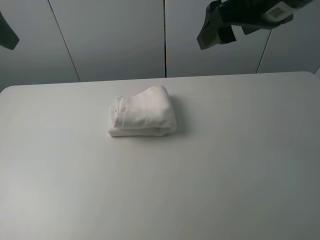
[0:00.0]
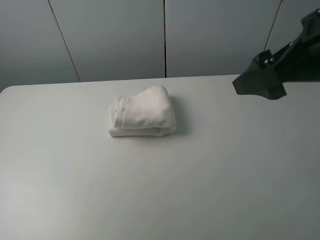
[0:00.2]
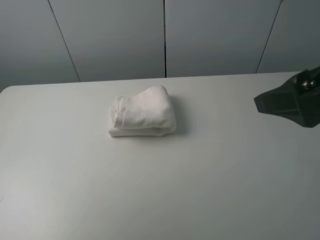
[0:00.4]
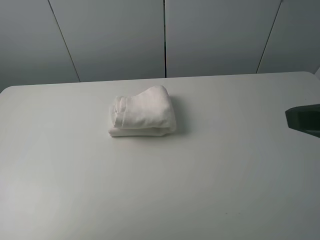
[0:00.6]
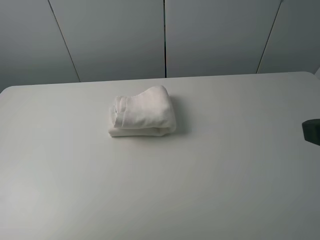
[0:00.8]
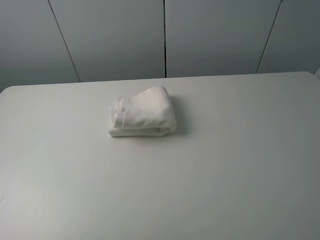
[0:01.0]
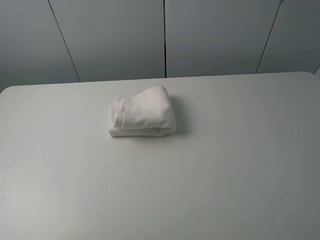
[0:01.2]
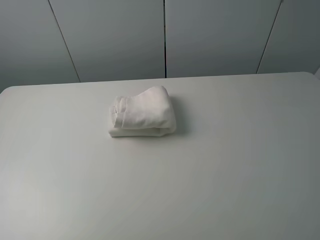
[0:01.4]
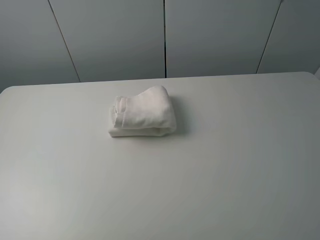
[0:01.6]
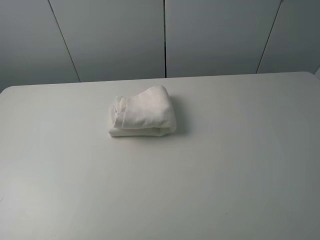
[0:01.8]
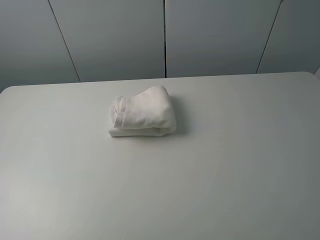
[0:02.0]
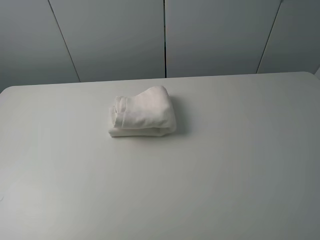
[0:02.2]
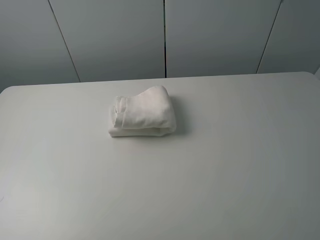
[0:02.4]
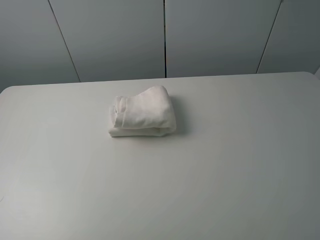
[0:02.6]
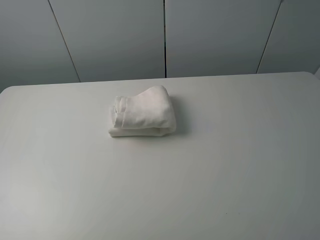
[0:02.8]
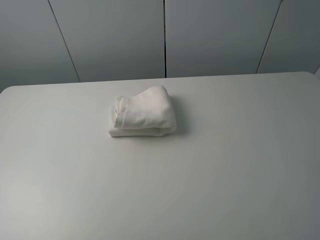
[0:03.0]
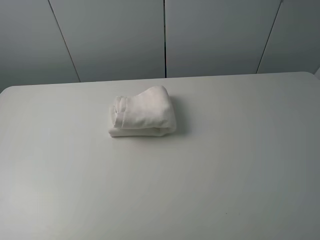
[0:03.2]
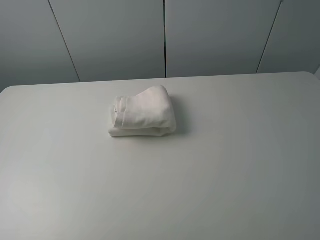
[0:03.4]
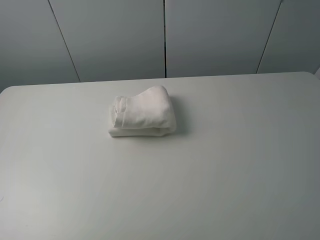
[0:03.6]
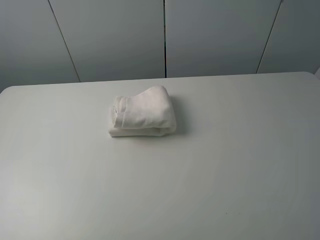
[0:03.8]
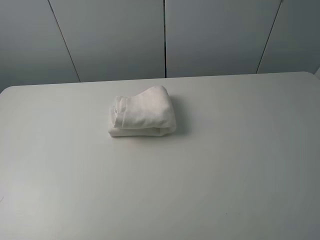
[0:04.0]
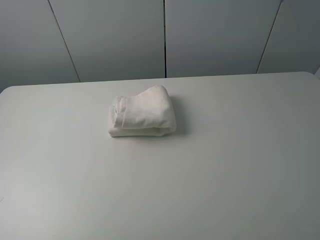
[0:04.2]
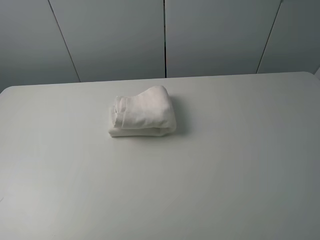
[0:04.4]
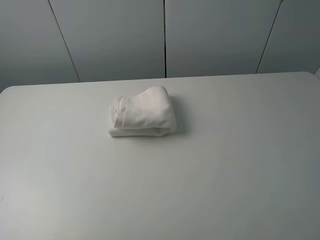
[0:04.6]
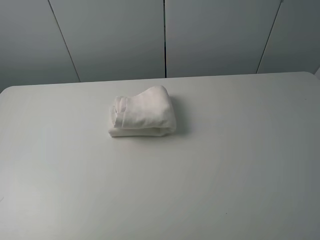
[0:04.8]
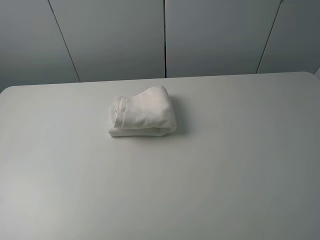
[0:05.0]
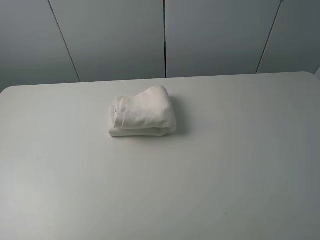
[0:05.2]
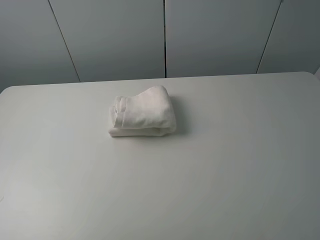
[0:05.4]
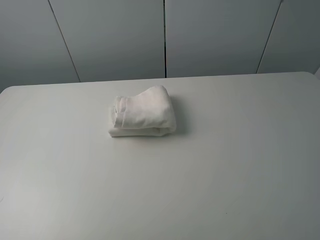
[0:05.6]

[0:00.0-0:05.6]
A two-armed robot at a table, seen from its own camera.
Task of the whole recording: fold the towels on the table.
0:00.0 to 0:01.4: The right gripper heads backward and to the right, covering some 25 cm, while the left gripper moves backward and downward, about 25 cm.
0:04.2 to 0:05.6: Neither gripper changes place.

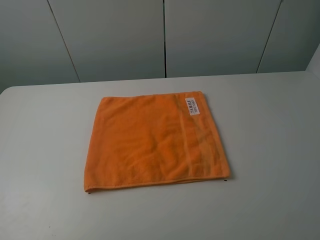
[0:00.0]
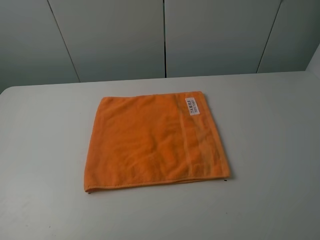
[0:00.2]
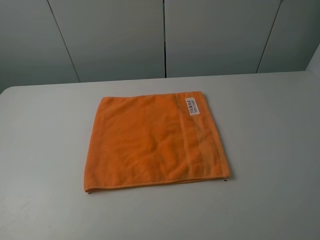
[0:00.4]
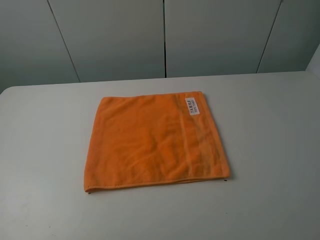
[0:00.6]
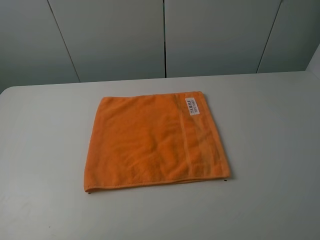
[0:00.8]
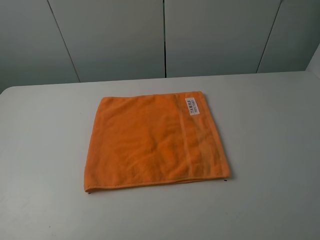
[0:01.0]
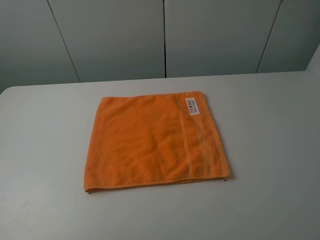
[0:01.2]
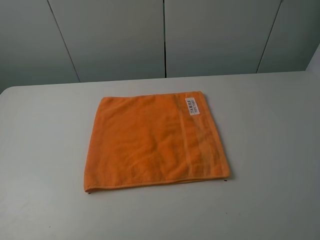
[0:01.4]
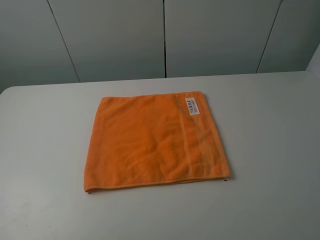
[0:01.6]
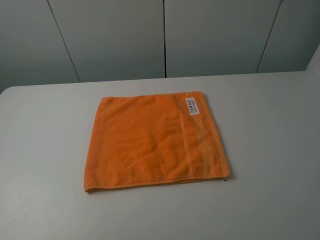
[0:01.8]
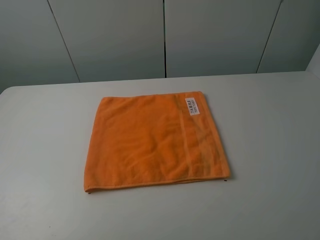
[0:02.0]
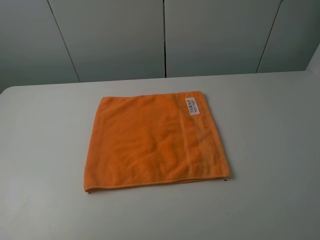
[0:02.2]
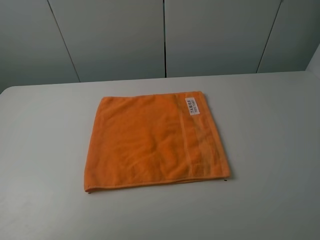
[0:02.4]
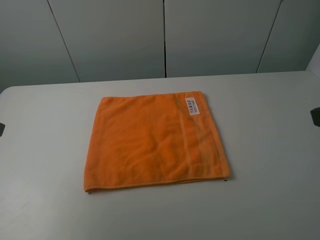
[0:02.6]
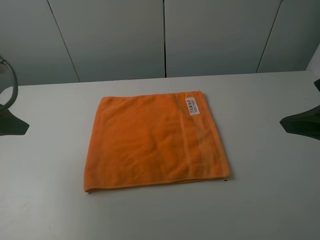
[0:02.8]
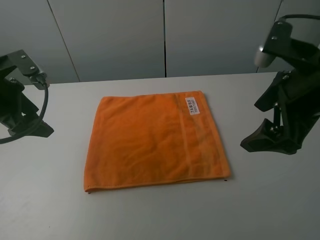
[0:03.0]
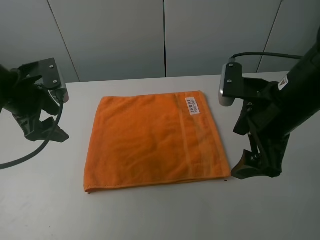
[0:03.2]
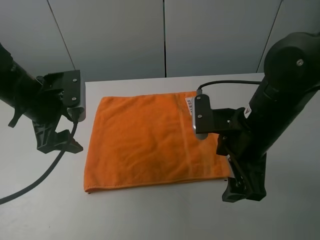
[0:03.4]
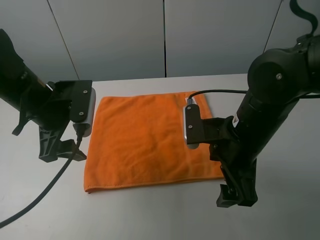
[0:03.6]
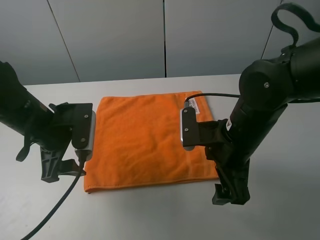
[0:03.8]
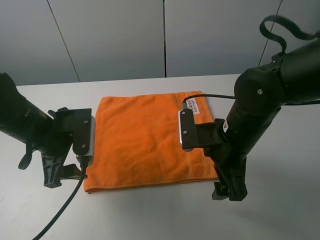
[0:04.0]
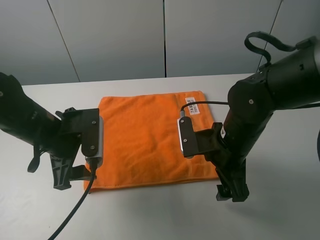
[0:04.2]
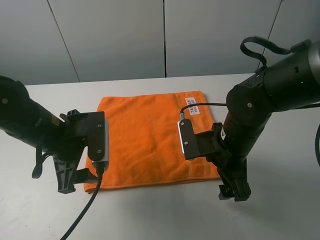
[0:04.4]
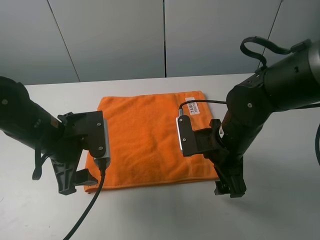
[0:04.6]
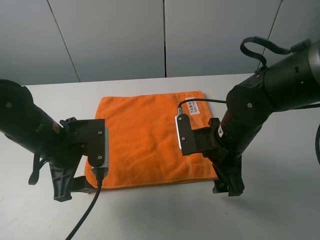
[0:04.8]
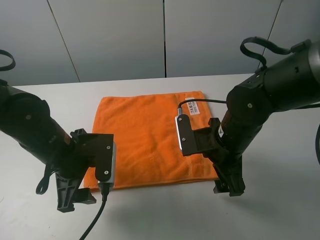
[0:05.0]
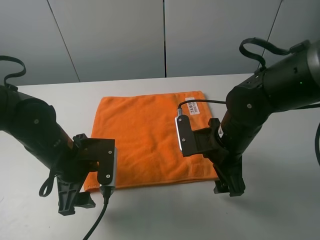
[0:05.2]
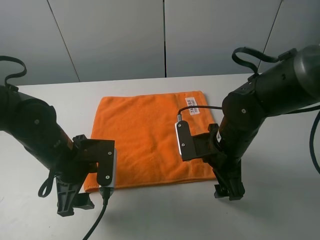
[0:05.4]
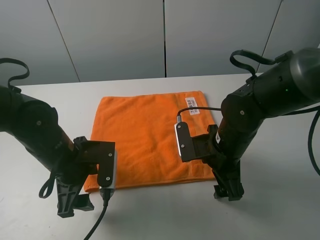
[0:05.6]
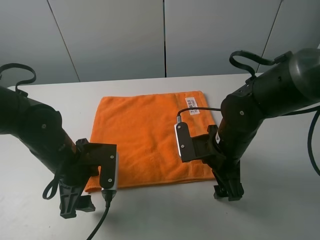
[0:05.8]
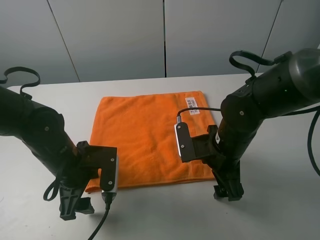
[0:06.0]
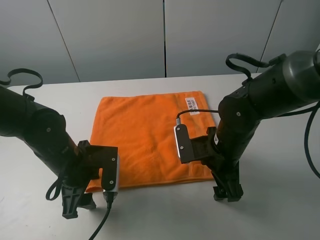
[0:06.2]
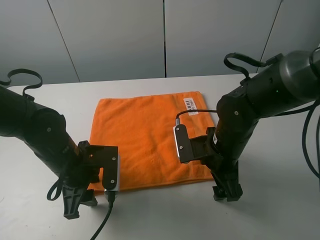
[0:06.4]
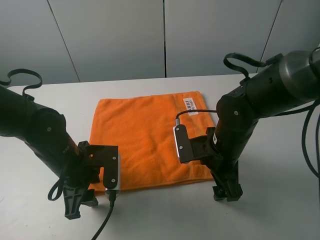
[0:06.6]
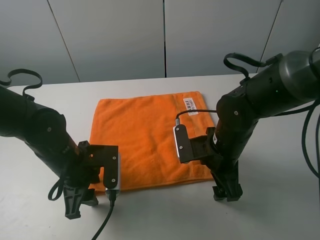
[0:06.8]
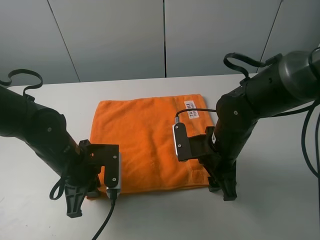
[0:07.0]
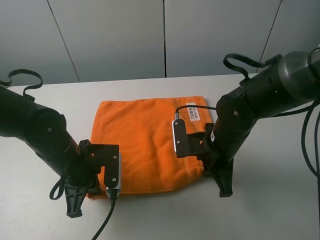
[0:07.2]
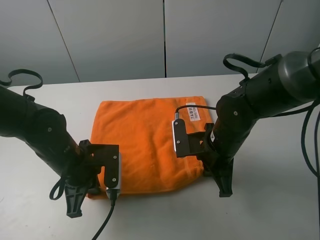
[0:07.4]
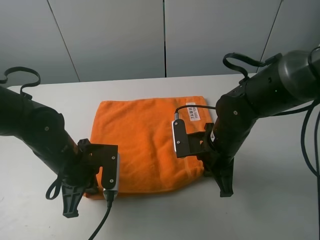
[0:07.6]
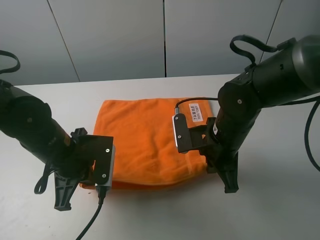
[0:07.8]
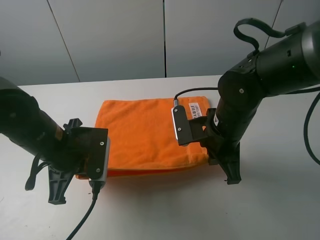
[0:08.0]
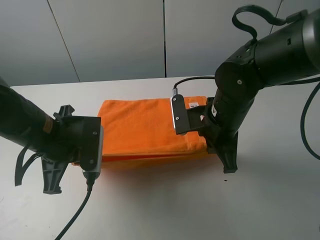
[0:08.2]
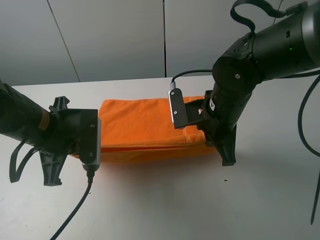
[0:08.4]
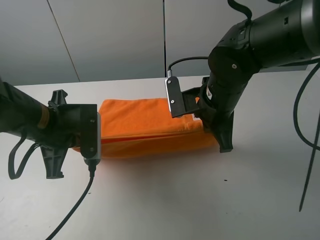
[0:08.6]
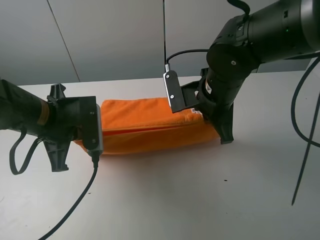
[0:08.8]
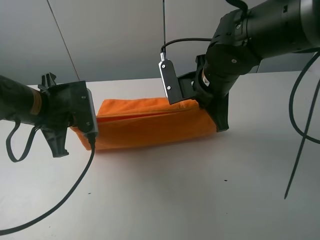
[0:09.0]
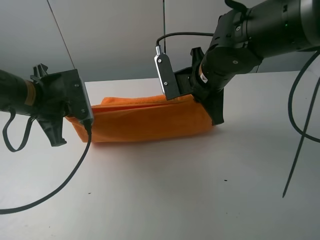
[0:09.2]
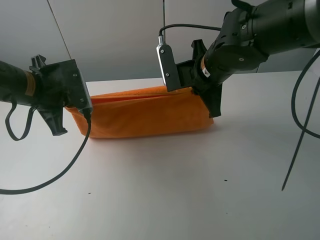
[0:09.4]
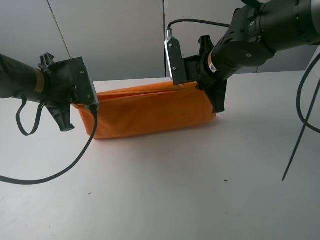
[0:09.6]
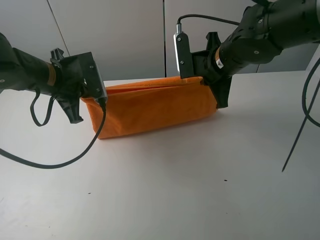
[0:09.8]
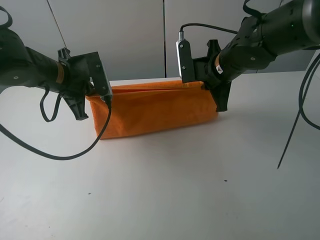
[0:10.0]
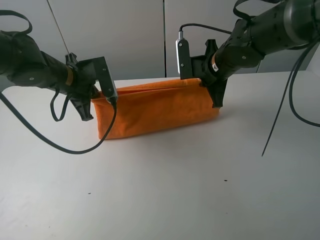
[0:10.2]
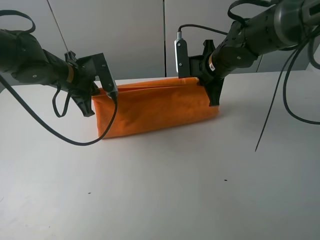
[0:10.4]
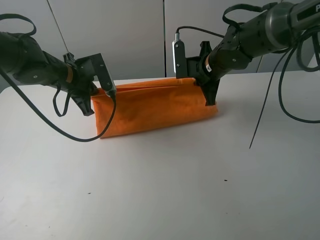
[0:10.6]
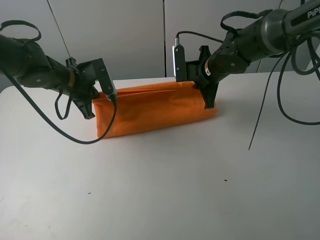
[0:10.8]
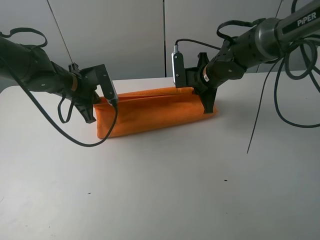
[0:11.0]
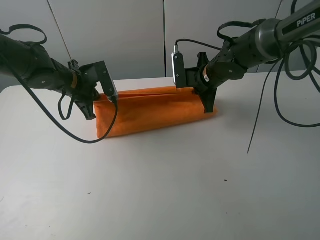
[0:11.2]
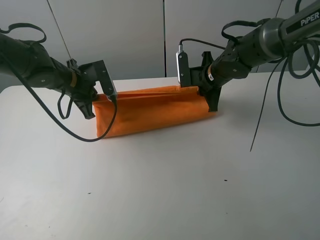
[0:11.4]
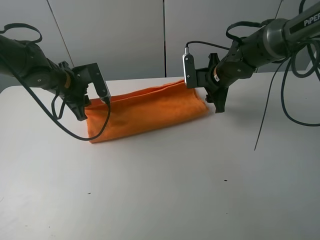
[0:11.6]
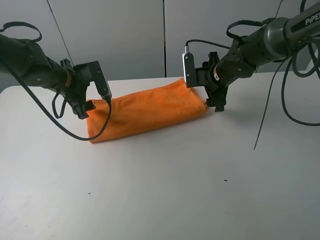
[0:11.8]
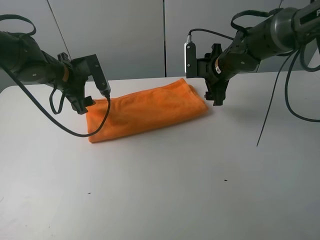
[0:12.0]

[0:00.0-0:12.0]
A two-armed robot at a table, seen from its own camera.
Task of the whole recording: fold the towels on the table.
Step, 0:00.0 to 0:07.2: Grasp the orange towel with the right gripper.
Step, 0:07.4 to 0:11.8: Fold the orange towel upwards with the right gripper.
0:01.6 to 0:03.0: The left gripper goes about 25 cm forward; the right gripper is displaced forward and to the left by approximately 20 cm.
0:03.0 to 0:04.4: The left gripper goes roughly 15 cm to the right, downward and backward; the right gripper shifts some 15 cm downward and to the left.
0:04.4 to 0:06.0: The left gripper travels downward by roughly 5 cm.
0:06.0 to 0:07.6: The left gripper closes up. The right gripper closes up.
0:07.6 to 0:09.0: The right gripper goes some 10 cm upward and forward; the left gripper shifts some 10 cm upward.
0:09.0 to 0:10.4: The grippers both shift forward by roughly 10 cm.
0:10.4 to 0:12.0: The right gripper opens its fingers. The left gripper opens its fingers.

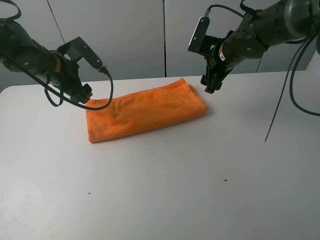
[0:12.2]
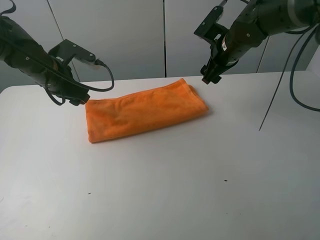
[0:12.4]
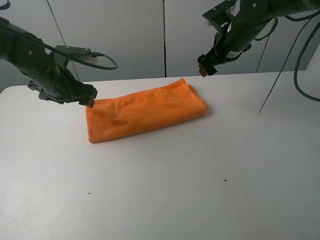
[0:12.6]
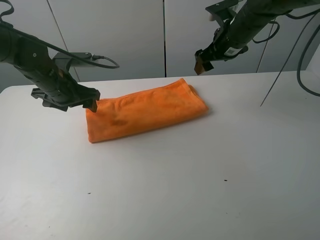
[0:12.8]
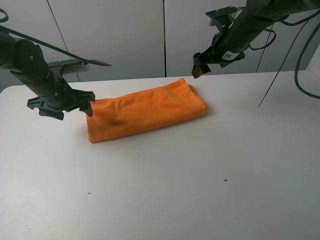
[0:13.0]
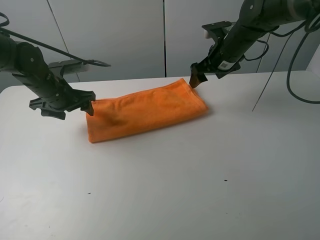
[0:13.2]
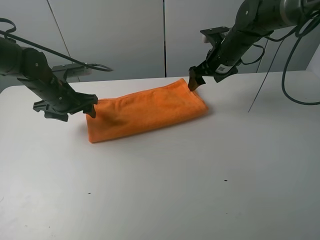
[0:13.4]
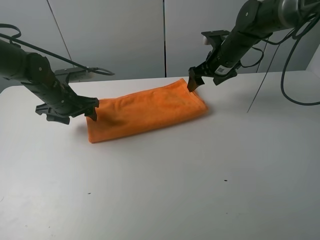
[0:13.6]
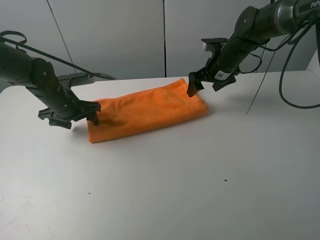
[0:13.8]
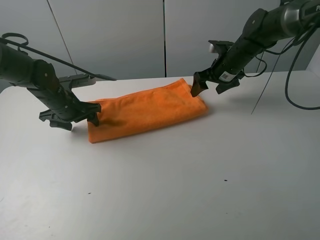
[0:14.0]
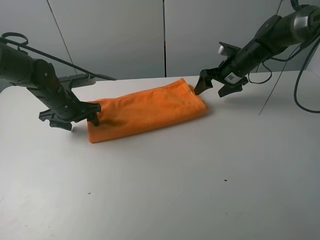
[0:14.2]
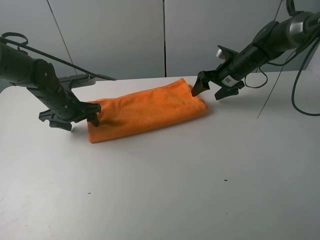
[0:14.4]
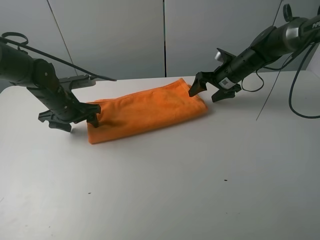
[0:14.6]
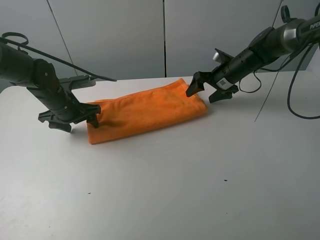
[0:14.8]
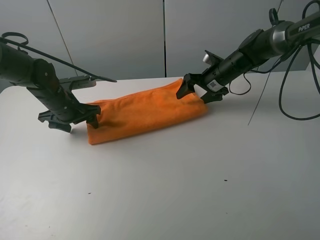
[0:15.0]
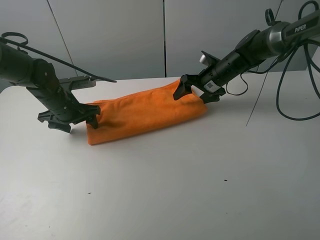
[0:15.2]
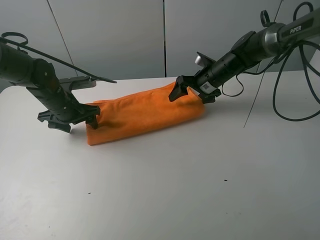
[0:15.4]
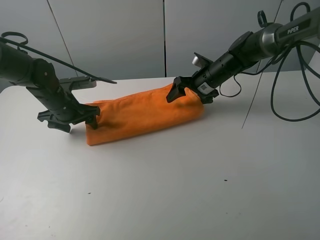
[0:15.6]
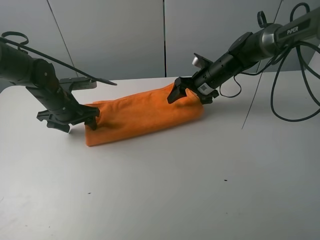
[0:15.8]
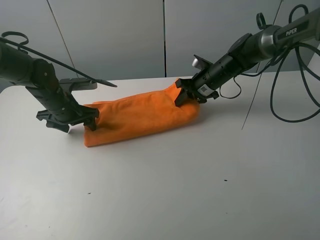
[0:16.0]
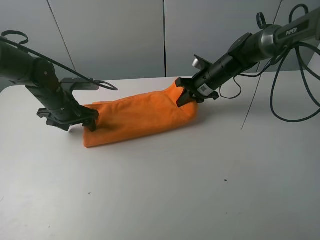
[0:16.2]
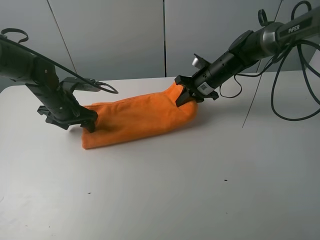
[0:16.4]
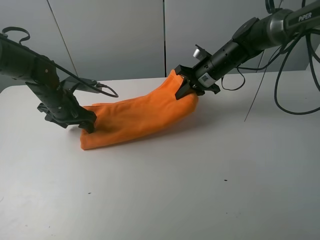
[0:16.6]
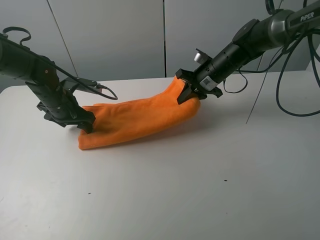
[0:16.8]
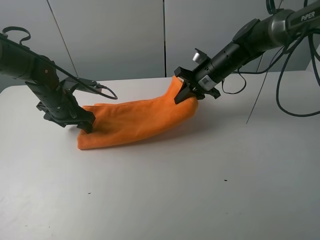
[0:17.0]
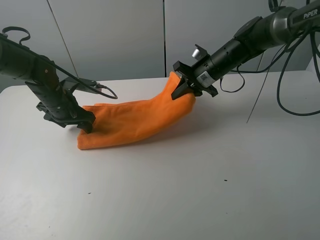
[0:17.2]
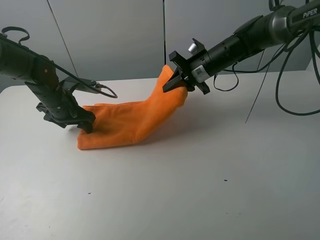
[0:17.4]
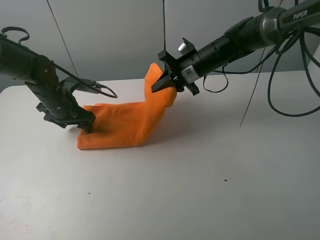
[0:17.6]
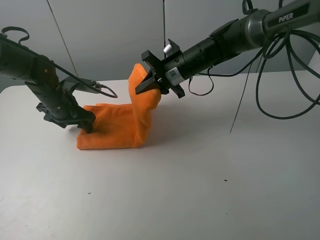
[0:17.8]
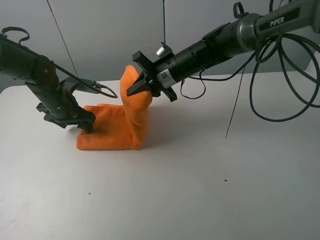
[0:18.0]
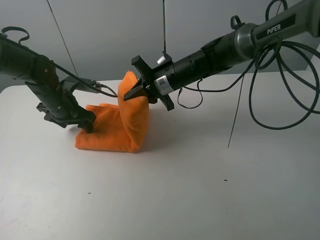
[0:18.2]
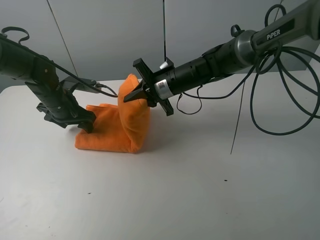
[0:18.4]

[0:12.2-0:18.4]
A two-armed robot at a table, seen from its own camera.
Task of the whole recording: fold the towels on the table.
Step, 0:12.2 to 0:13.8: Press on the orange towel with the left gripper.
0:12.2 to 0:13.8: The right gripper moves some 5 cm. Meanwhile the left gripper goes roughly 10 cm downward.
0:13.8 to 0:15.4: The right gripper shifts by some 5 cm.
0:15.4 to 0:16.8: The right gripper closes its fingers.
0:16.8 to 0:18.4: The right gripper moves to the left and backward, roughly 10 cm.
